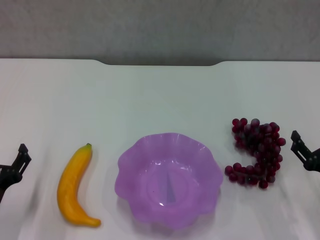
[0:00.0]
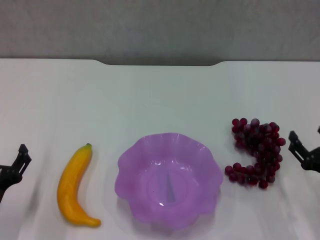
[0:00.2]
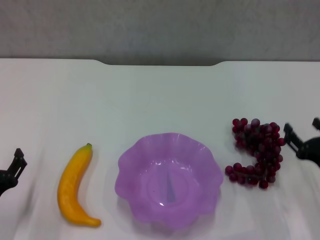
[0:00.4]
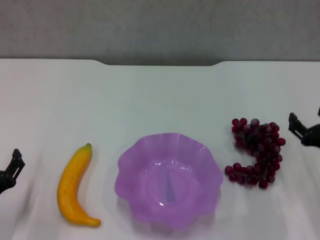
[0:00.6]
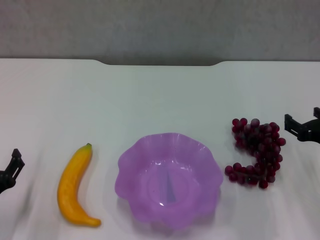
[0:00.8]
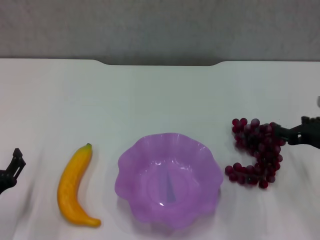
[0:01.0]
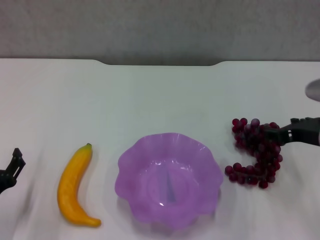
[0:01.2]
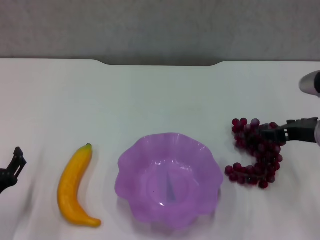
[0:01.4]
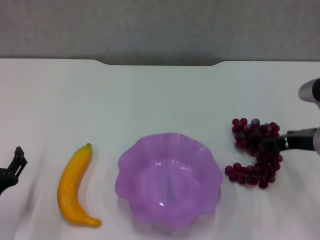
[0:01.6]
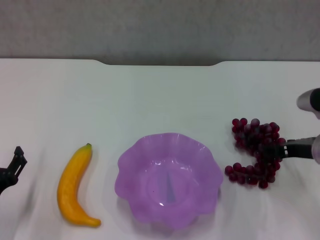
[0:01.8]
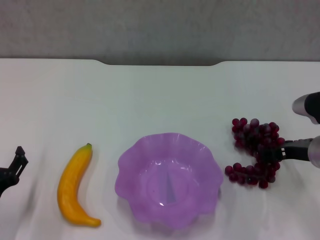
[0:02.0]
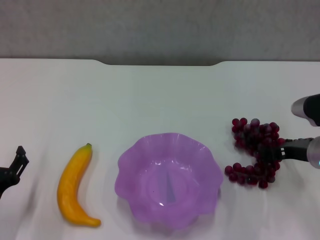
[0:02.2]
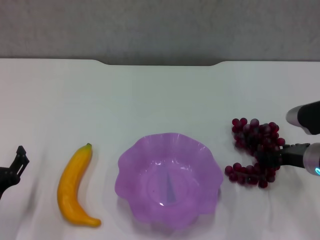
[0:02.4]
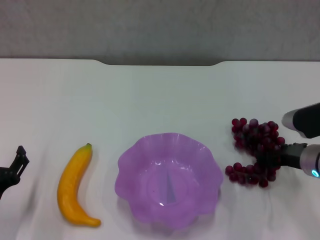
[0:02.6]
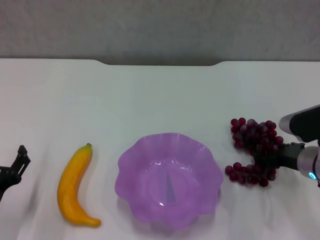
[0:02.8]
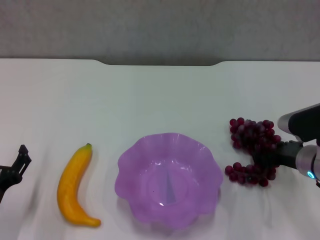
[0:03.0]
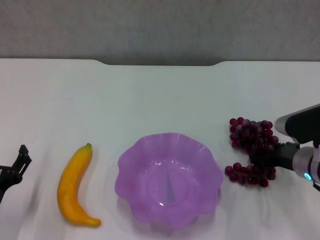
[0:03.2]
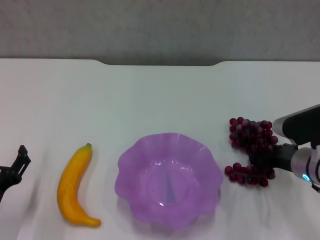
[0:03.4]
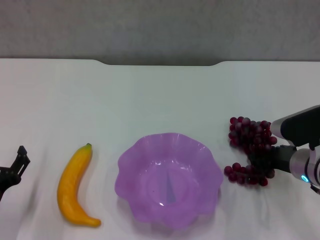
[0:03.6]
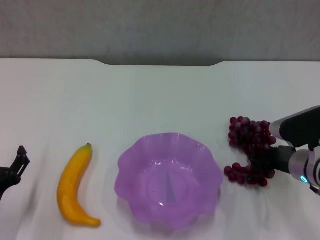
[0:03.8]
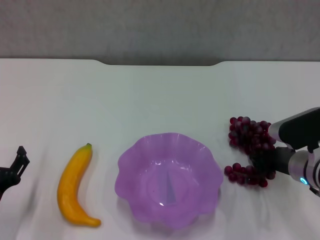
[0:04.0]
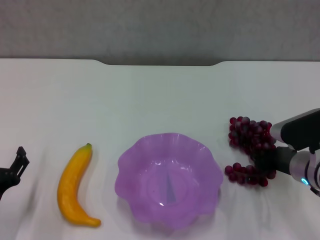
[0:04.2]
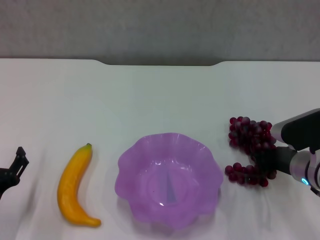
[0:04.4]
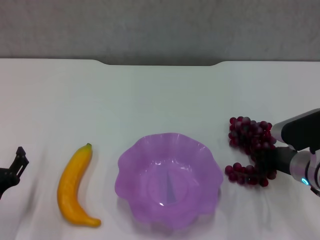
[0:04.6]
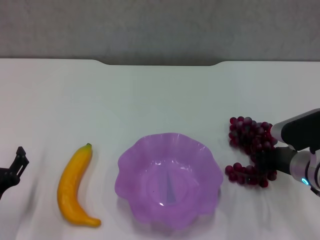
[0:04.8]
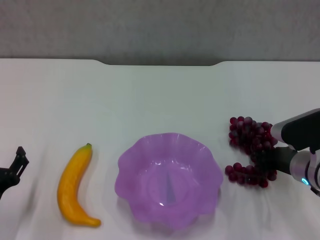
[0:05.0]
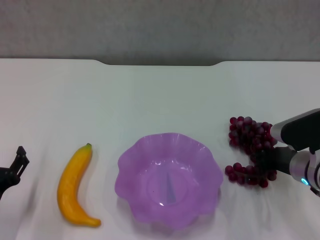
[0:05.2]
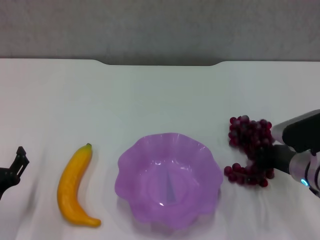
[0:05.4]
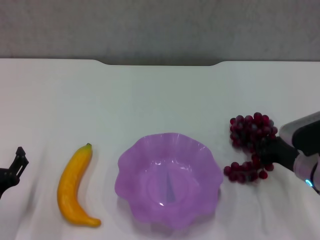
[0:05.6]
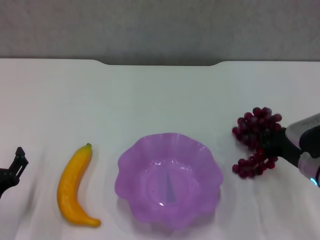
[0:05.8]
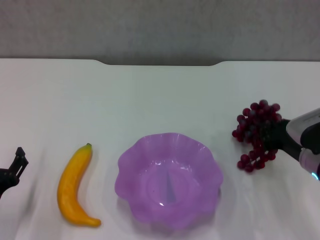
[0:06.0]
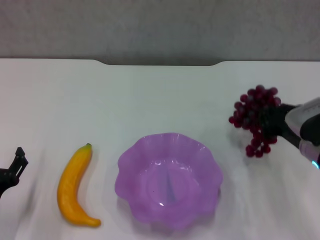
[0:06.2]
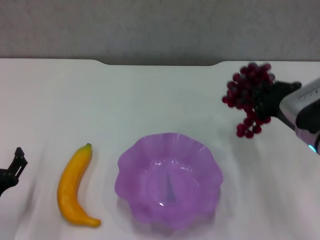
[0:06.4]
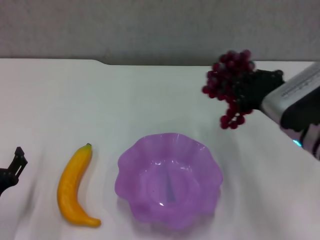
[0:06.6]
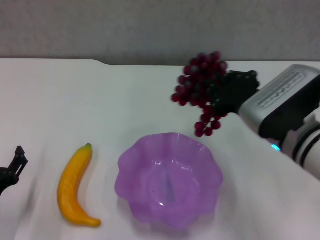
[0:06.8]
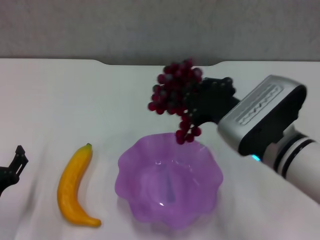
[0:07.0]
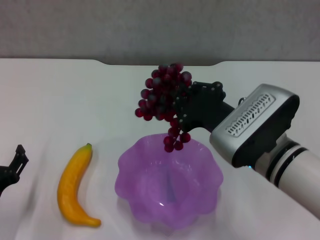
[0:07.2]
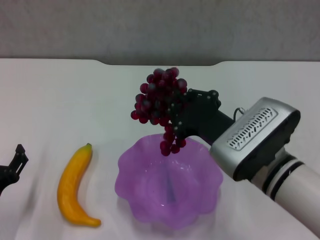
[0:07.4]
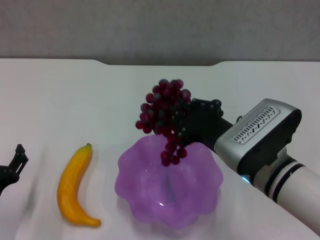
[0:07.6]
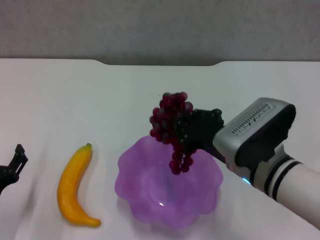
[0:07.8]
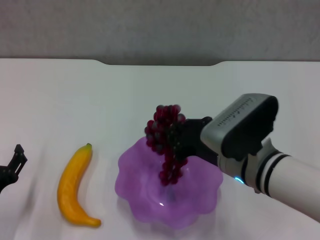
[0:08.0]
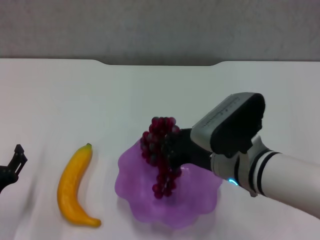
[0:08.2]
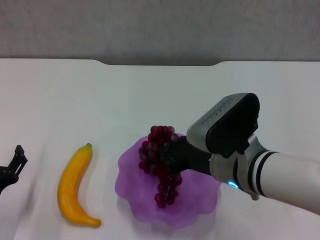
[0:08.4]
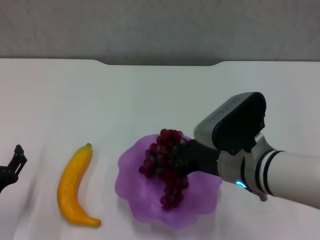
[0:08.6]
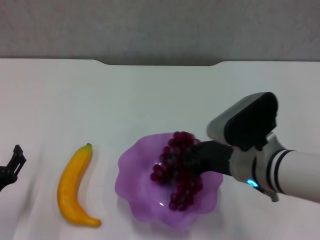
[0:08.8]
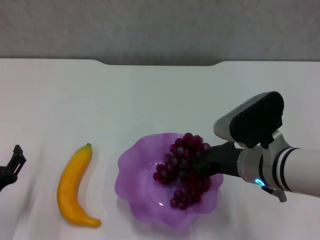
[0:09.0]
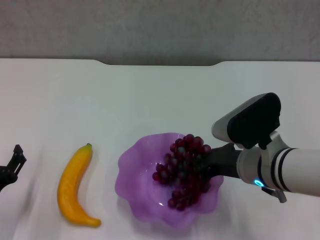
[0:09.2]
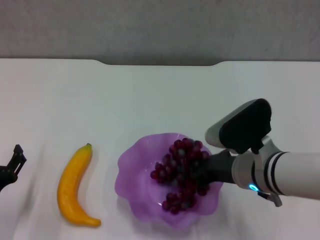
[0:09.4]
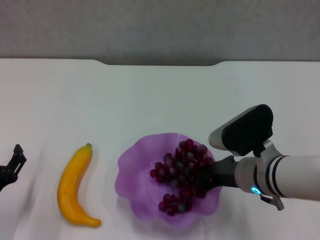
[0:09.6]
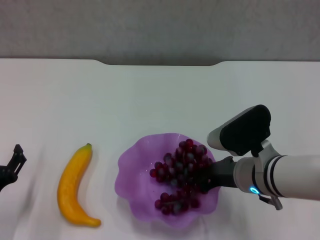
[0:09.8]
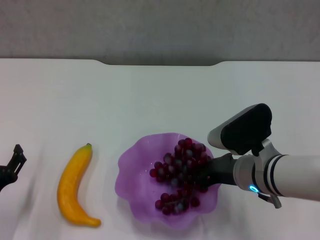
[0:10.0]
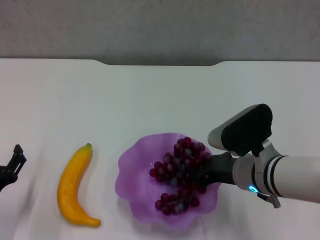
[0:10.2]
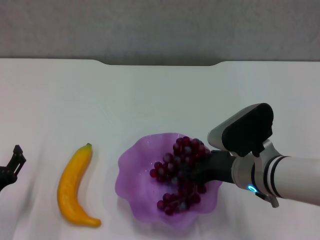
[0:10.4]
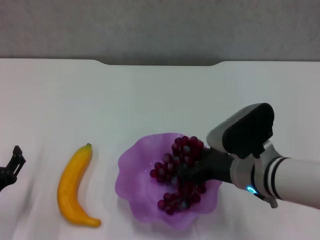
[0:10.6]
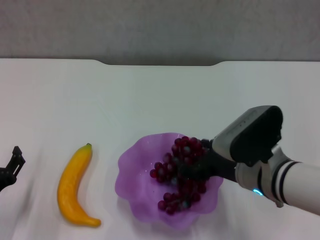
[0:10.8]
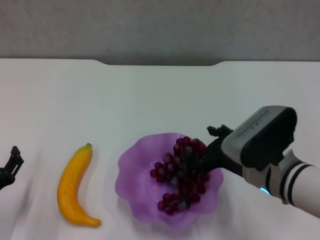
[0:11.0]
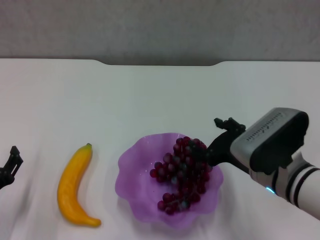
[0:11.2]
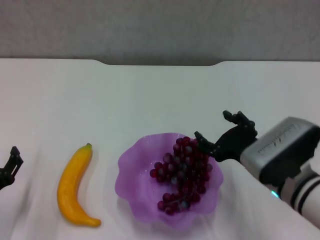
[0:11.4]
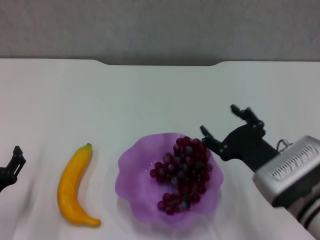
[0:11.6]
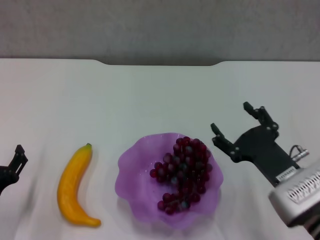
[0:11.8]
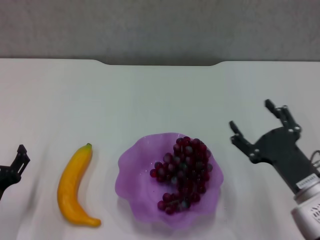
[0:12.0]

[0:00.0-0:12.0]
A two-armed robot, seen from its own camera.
Step, 0:00.0 to 0:04.0: Grasp the grape with right gripper.
Step, 0:04.4 to 0:11.4: Place the grape in the purple plate with right gripper.
0:00.0 to 0:01.6: The right gripper heads forward and upward, covering approximately 15 cm.
0:01.6 to 0:03.0: The right gripper goes roughly 5 cm downward.
0:03.0 to 0:04.4: The right gripper closes up.
0:04.4 to 0:06.0: The grippers move only a little.
0:06.0 to 0:07.6: The right gripper travels to the left by about 10 cm.
0:09.0 to 0:10.4: There are only small adjustments of the grippers.
0:10.4 to 0:12.0: The right gripper heads to the right and backward, covering roughly 10 cm, and opens up.

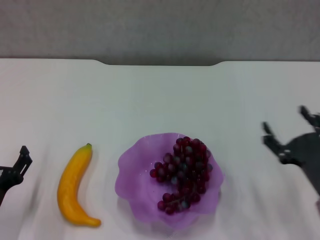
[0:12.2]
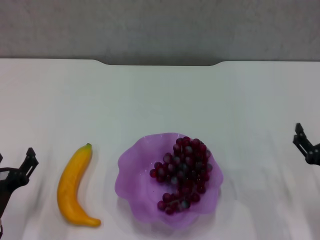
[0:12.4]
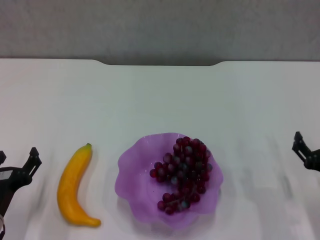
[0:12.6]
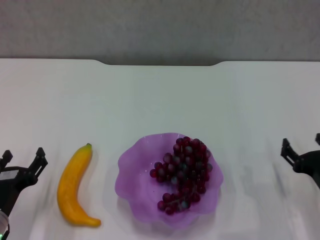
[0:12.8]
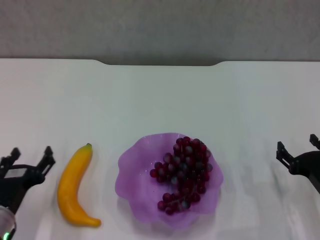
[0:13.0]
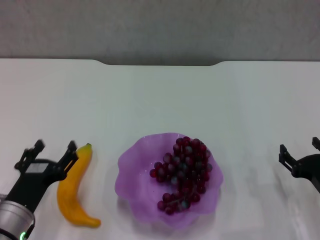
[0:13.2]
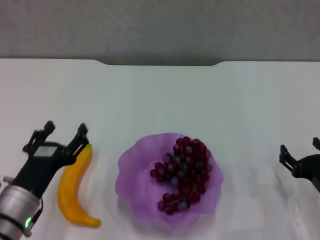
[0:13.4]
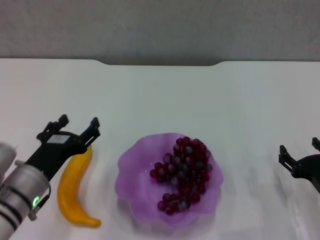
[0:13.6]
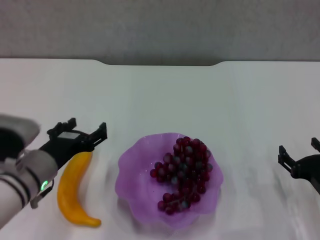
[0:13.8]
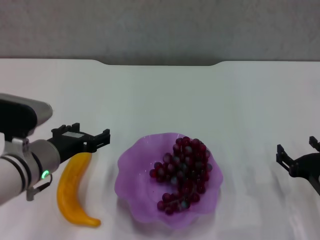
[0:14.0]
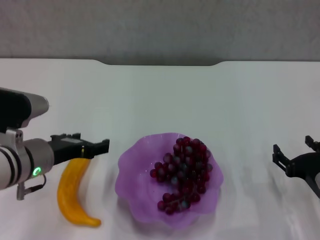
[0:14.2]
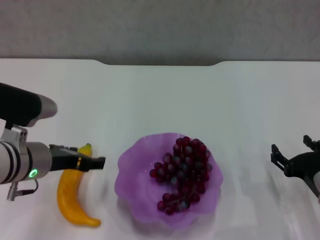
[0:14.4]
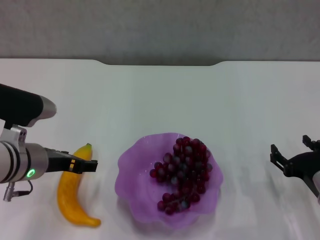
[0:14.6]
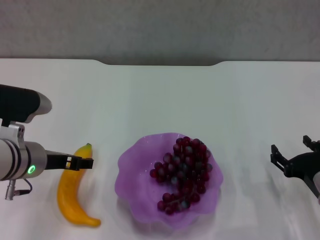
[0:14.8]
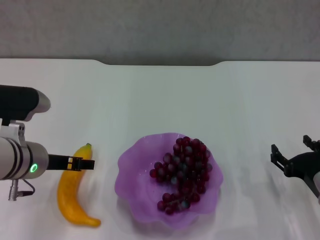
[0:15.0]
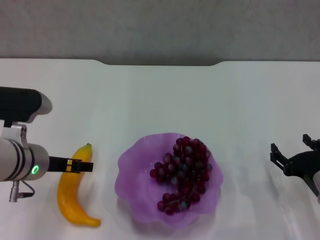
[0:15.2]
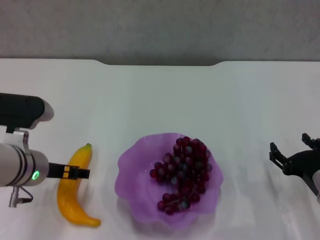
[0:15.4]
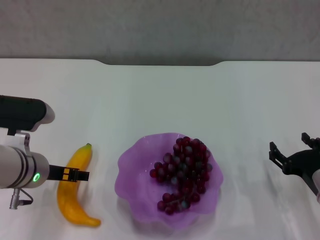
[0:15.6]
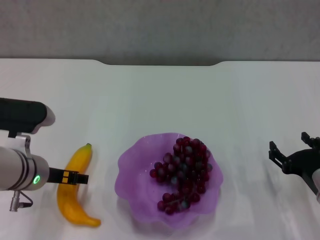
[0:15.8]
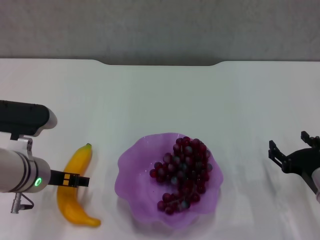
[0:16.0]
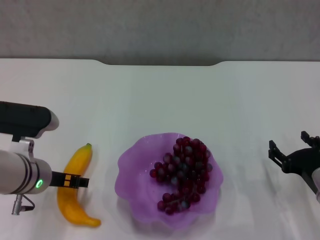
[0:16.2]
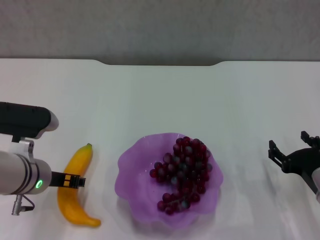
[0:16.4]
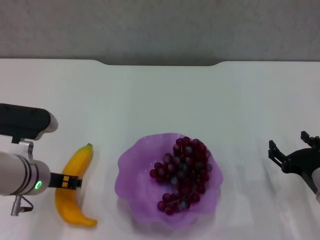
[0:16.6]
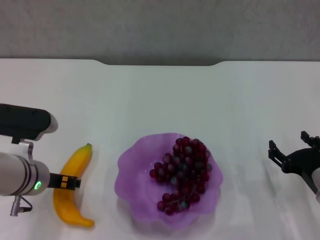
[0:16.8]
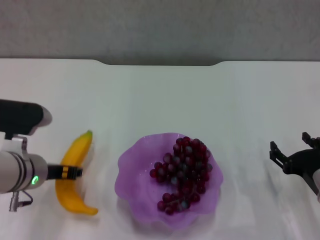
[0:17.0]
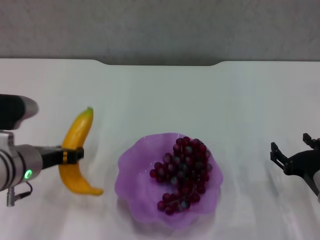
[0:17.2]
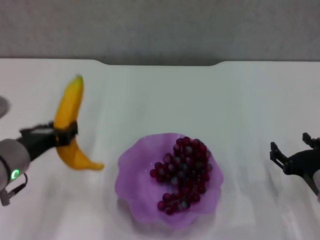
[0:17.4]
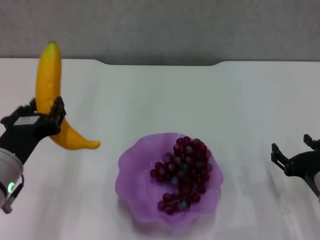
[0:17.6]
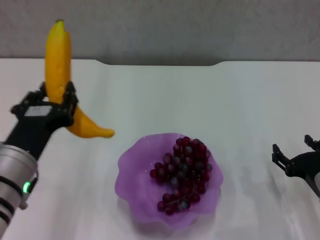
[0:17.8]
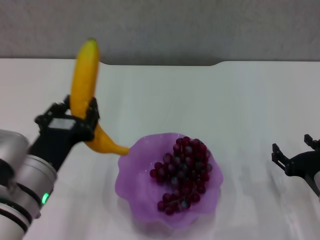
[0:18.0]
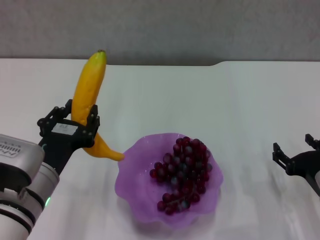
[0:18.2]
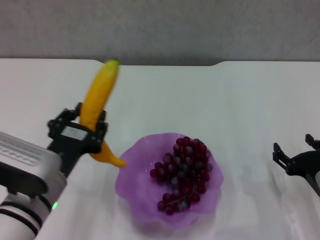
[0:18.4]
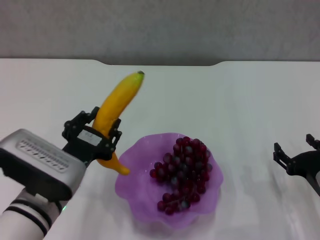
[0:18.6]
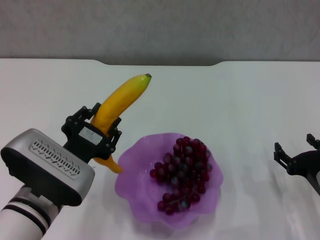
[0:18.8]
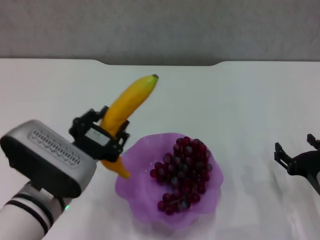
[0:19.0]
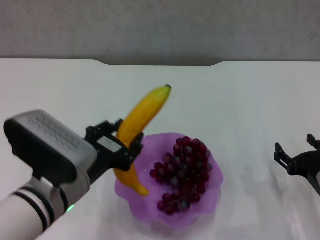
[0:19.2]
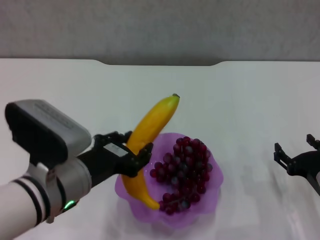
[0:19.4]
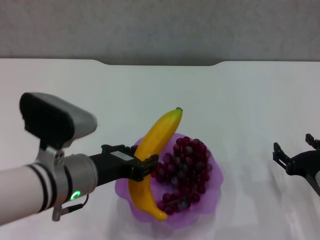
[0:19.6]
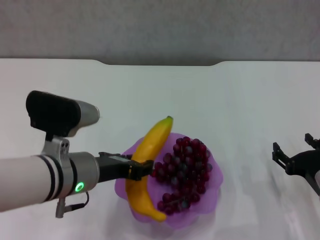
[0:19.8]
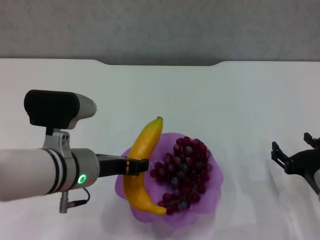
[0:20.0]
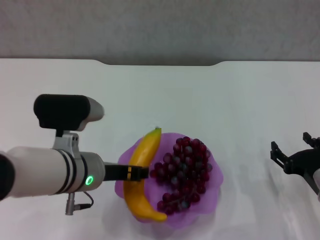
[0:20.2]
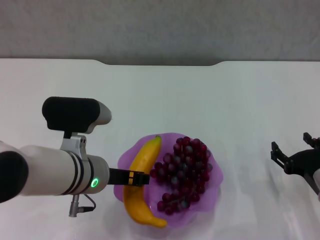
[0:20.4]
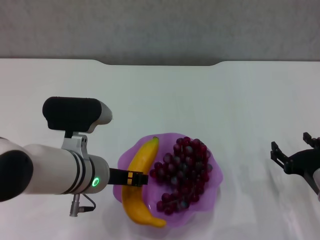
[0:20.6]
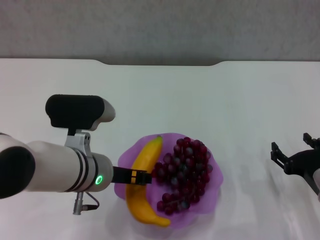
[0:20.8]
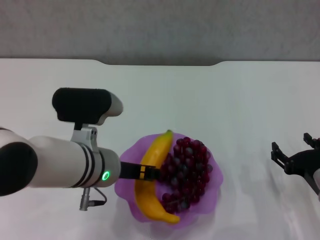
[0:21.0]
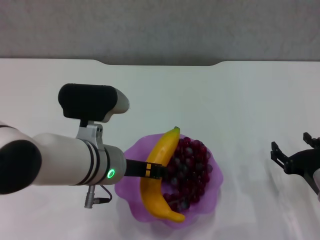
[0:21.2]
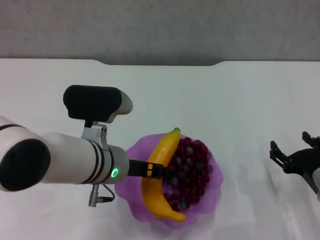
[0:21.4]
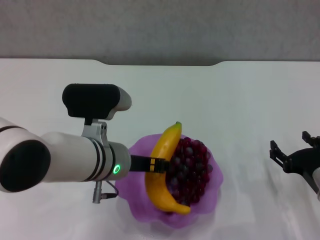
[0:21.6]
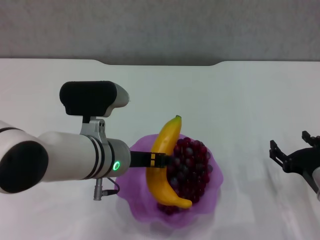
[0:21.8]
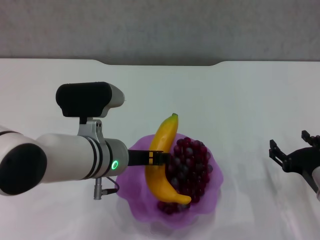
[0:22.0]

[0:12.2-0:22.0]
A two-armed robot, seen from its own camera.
Step, 0:12.2 to 0:16.6: Grasp the banana with left gripper.
0:12.2 to 0:13.6: The right gripper shifts by about 5 cm. The left gripper heads to the right and upward, covering approximately 10 cm.
0:13.6 to 0:15.0: The left gripper travels upward and forward by some 10 cm.
0:15.0 to 0:16.4: The grippers move only a little.
0:16.4 to 0:17.8: The left gripper heads backward, covering roughly 10 cm, and closes.
0:19.2 to 0:20.6: The left gripper is displaced forward by approximately 5 cm.
0:20.6 to 0:22.0: The grippers stay close to where they were, moving slightly.
